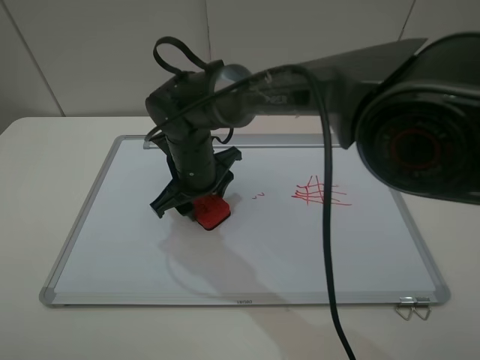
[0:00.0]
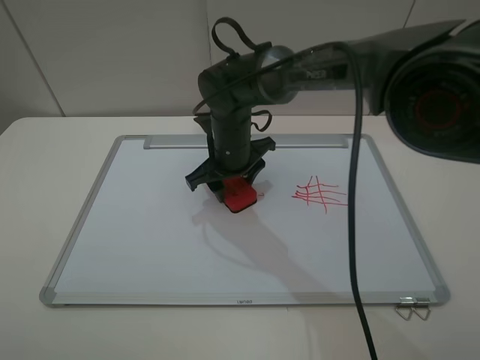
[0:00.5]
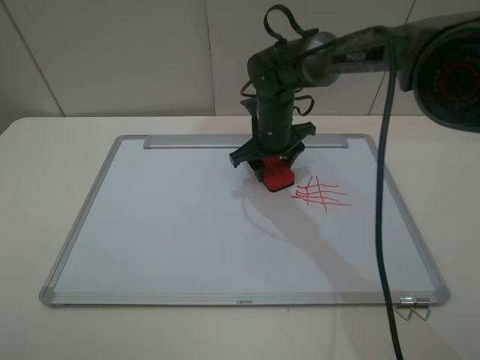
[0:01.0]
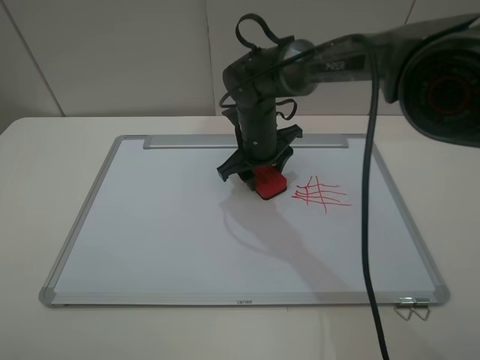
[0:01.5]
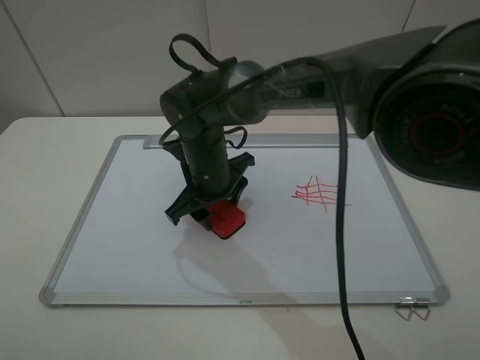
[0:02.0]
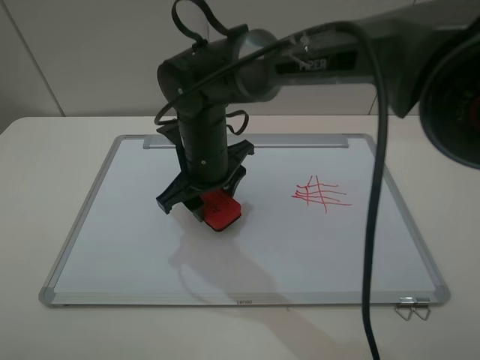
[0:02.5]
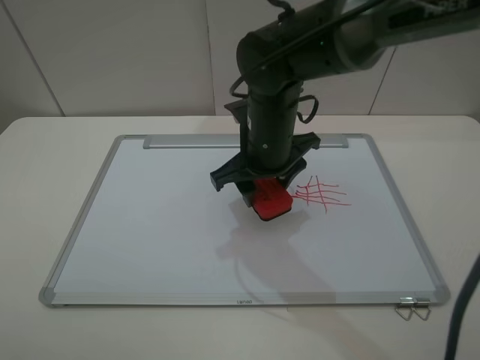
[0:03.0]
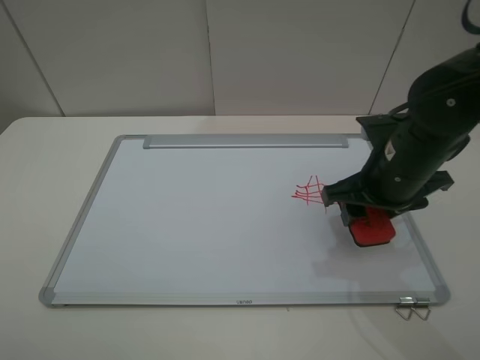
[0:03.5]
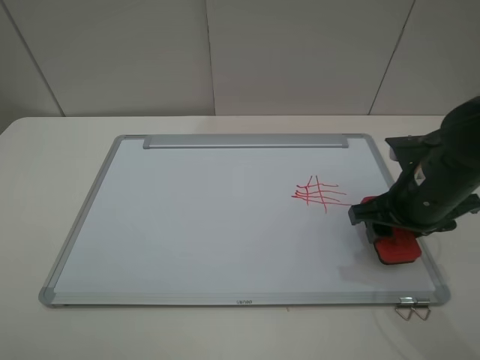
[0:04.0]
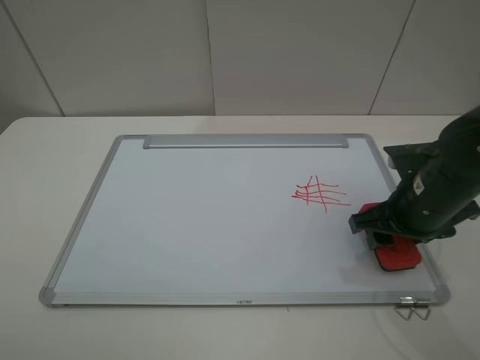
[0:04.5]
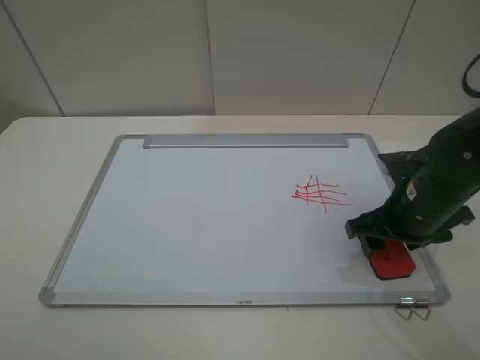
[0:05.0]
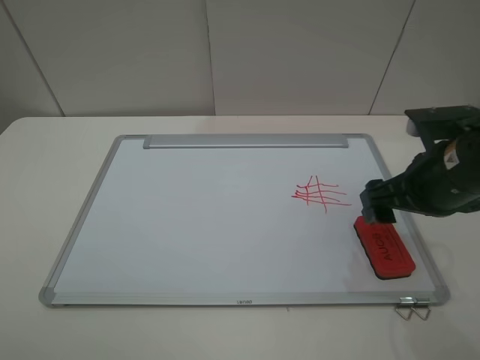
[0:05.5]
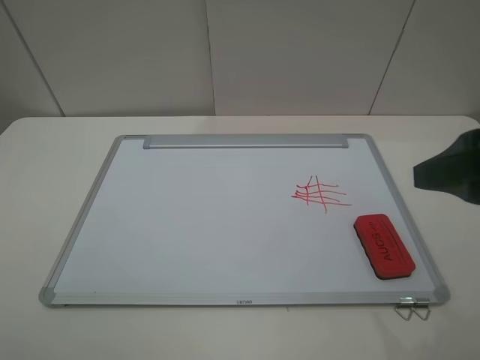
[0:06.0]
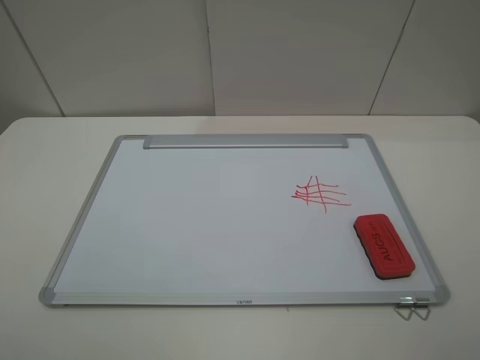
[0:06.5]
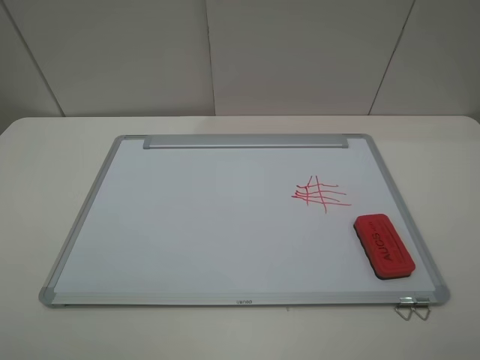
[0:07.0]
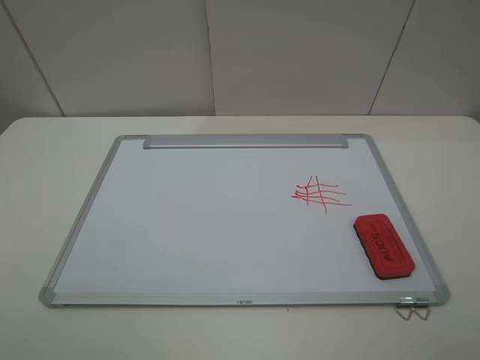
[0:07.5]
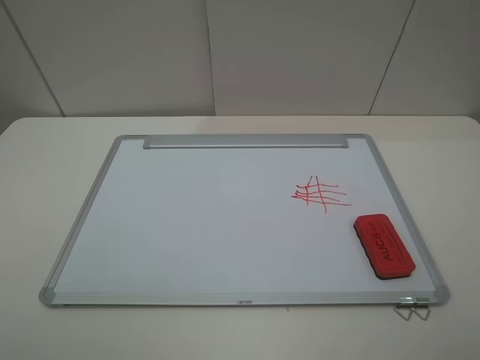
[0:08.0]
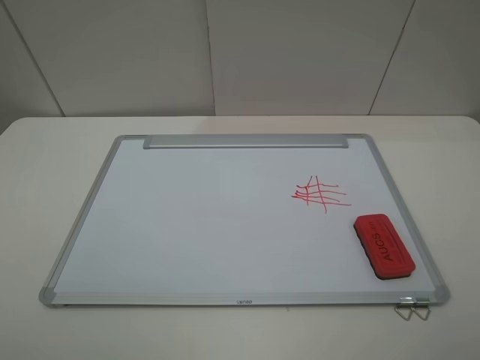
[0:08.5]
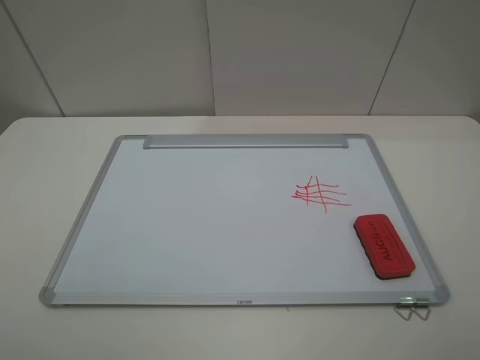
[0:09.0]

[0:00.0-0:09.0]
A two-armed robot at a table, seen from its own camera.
Step, 0:00.0 to 0:02.5: Grasp the eraser and wipe the blackboard with the right gripper.
Step, 0:03.0 to 0:05.0: Place the eraser with the right gripper.
0:00.0 to 0:02.0: The right gripper moves about 15 cm to the right and comes back.
0:02.0 to 0:04.5: The right gripper heads to the right, covering about 25 cm.
0:04.5 to 0:07.0: The right gripper moves backward and upward, approximately 30 cm, and opens.
